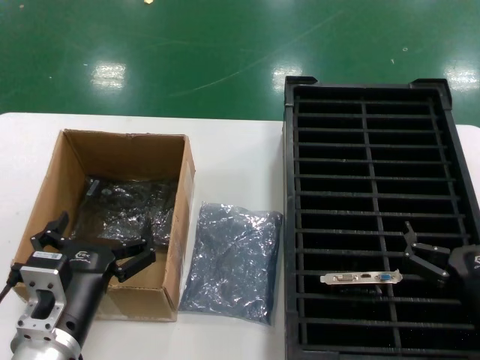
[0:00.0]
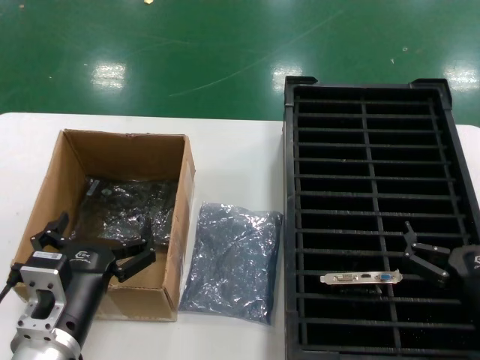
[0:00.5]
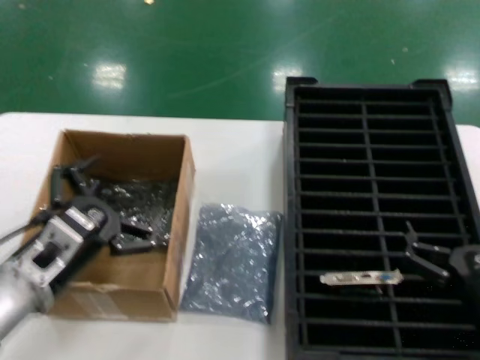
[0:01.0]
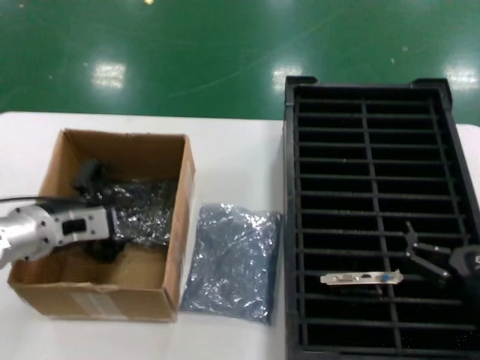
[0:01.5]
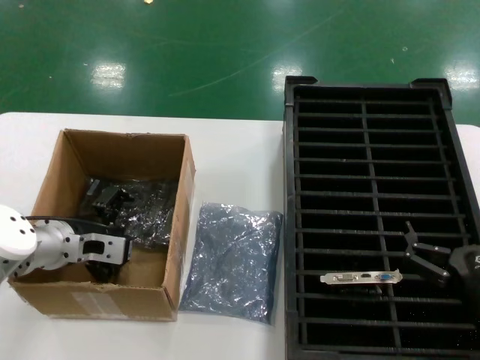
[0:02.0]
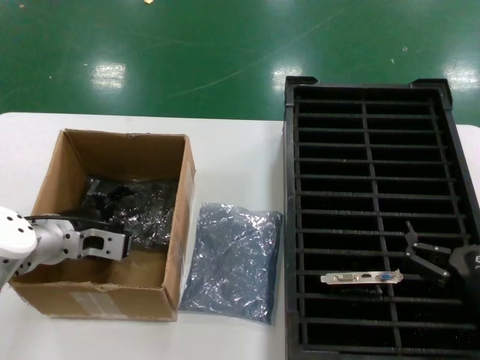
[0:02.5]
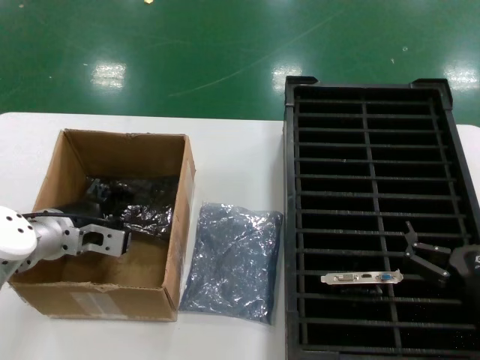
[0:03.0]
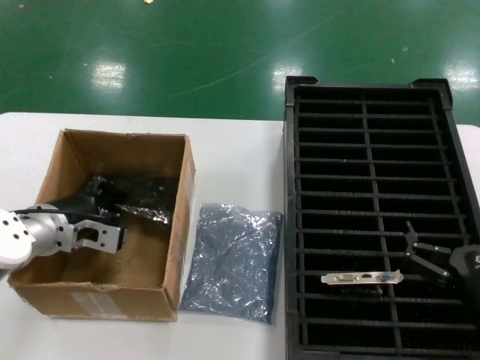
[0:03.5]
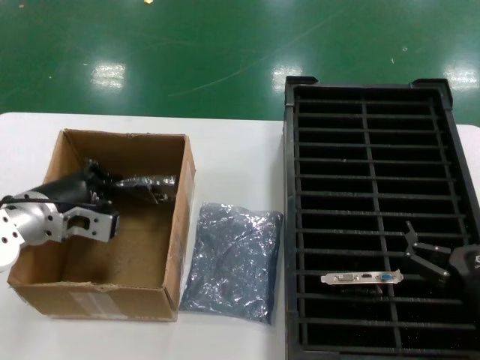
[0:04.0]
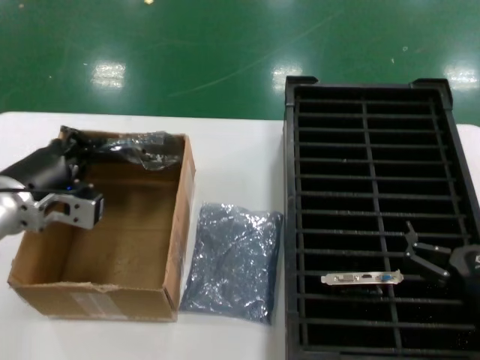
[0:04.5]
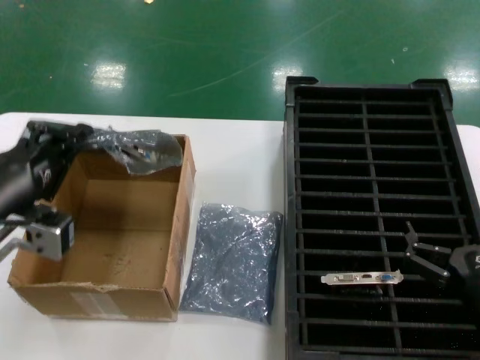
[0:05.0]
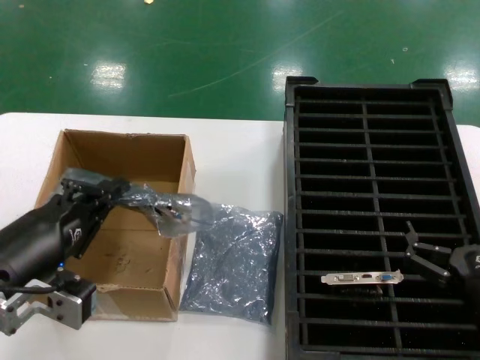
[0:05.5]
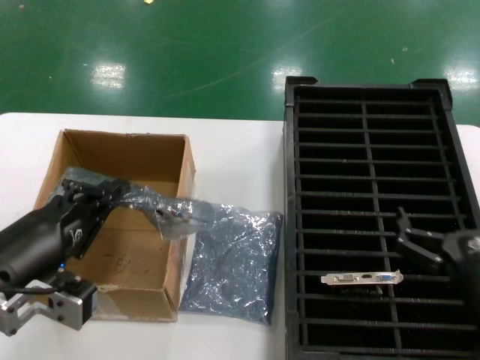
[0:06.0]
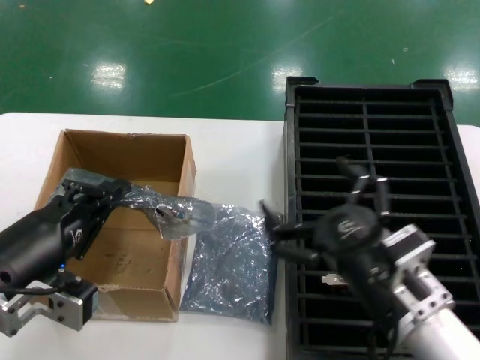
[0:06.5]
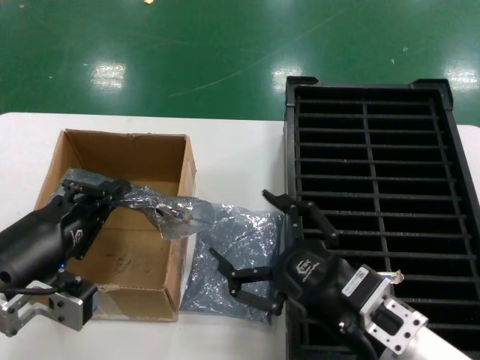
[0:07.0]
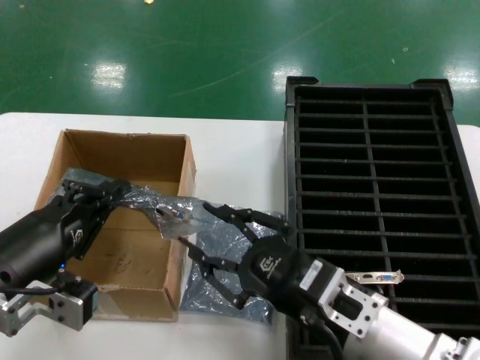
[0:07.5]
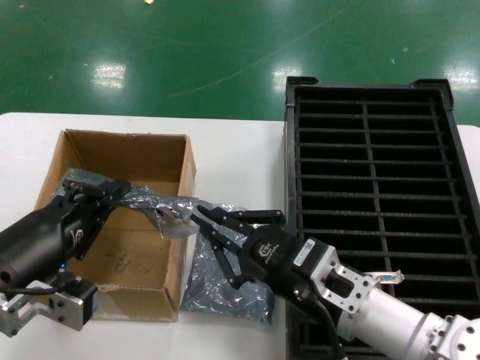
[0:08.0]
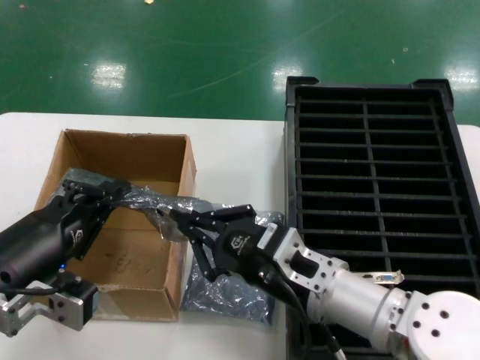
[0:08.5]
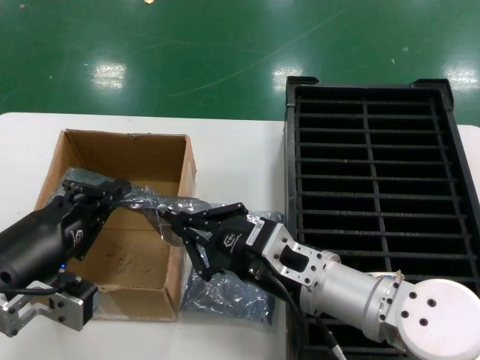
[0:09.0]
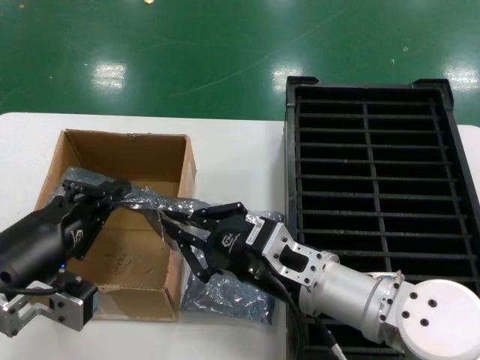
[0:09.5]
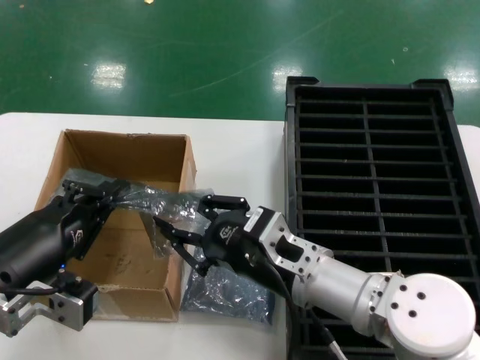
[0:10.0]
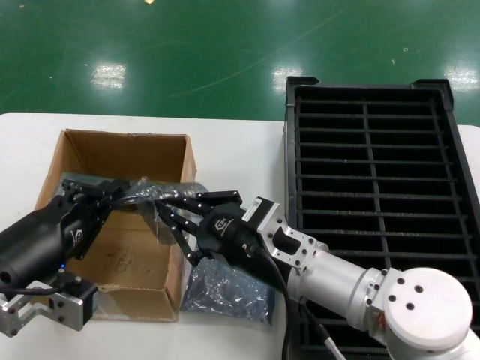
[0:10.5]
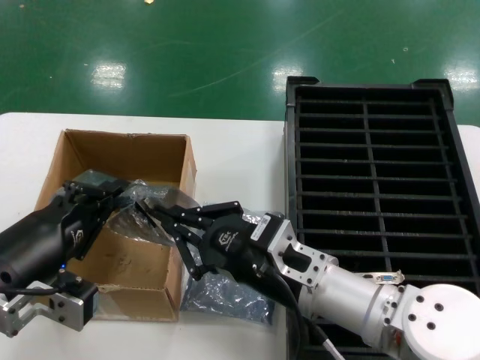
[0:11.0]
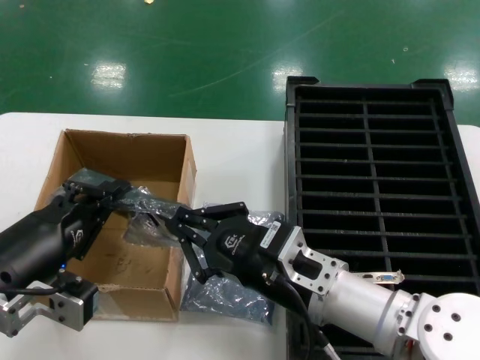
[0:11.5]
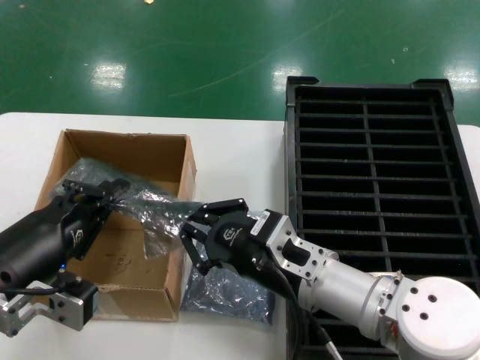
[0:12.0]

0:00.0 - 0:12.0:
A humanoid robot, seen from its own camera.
Task of the whole recording: take out graphics card from box remove packaging put into black container.
Step, 0:00.0 - 0:02.5: Grasp the bag.
Step, 0:03.5 - 0:05.5: Lift the bag.
0:00.0 - 0:02.0: The left hand travels forward and to the left by some 20 cm.
0:02.0 - 0:04.0: There are only small adjustments of the hands.
0:04.0 - 0:06.0: The left hand goes approximately 20 cm backward.
0:06.0 - 0:08.0: The right hand travels to the left by some 15 cm.
0:08.0 - 0:10.0: The right hand ends up some 5 cm from where it was.
0:10.0 - 0:12.0: The hands move only a little.

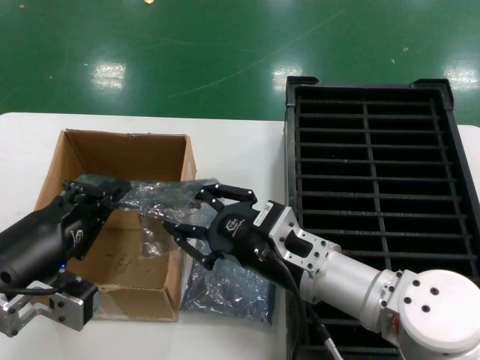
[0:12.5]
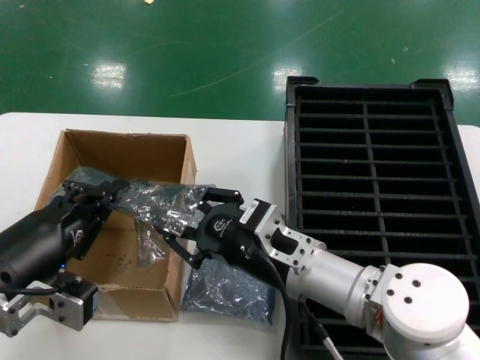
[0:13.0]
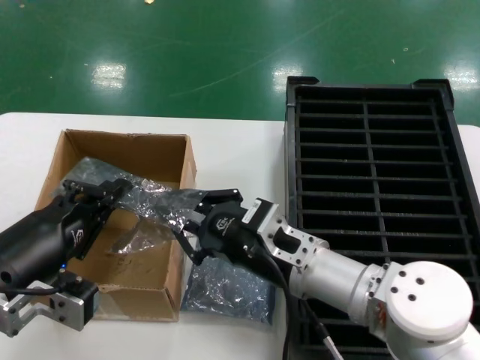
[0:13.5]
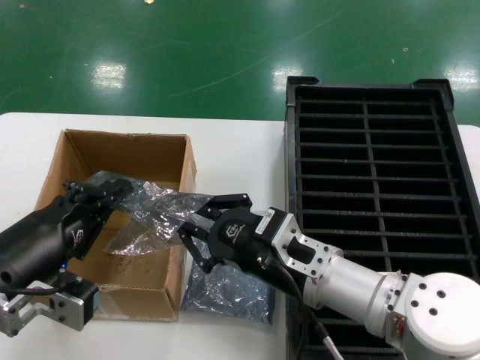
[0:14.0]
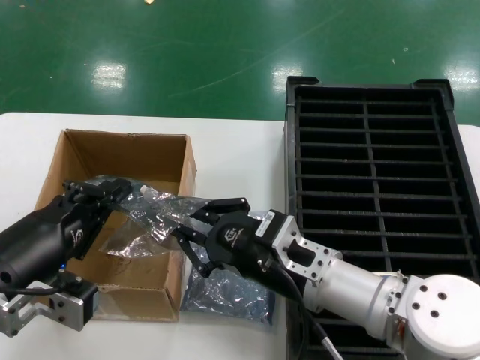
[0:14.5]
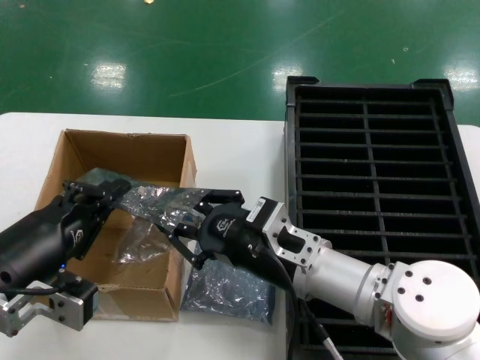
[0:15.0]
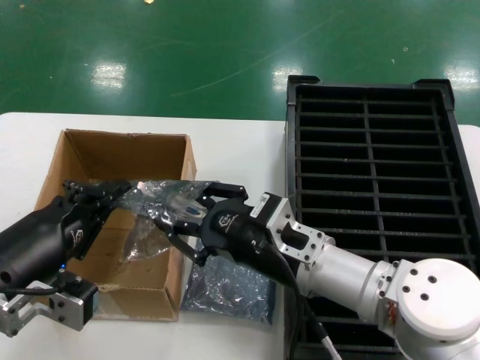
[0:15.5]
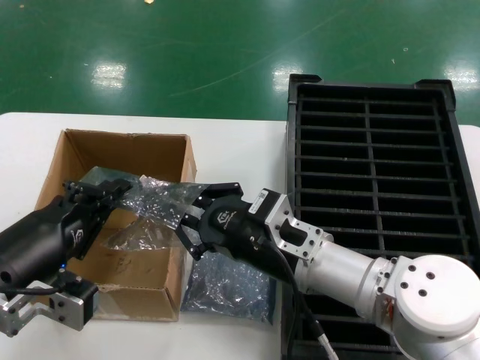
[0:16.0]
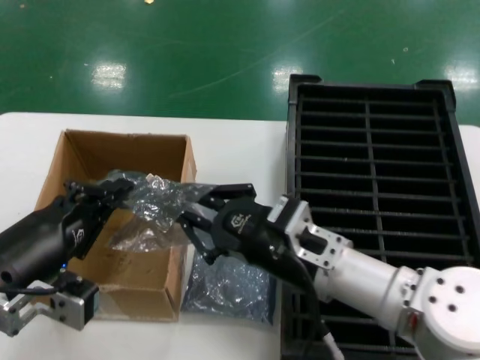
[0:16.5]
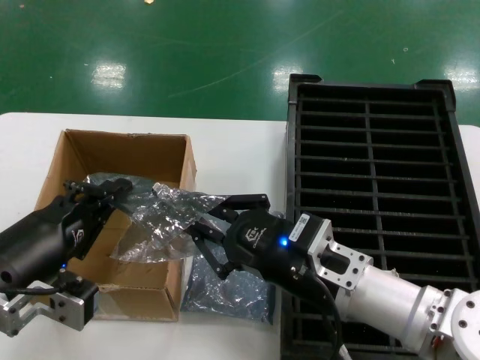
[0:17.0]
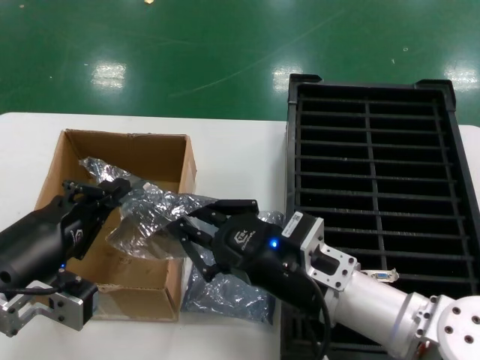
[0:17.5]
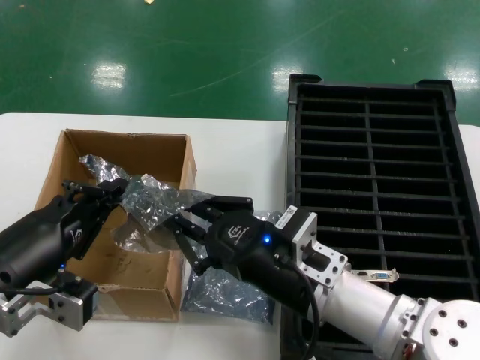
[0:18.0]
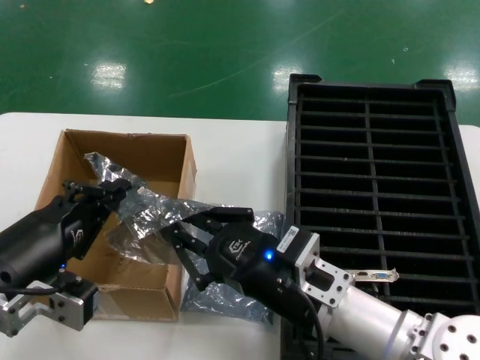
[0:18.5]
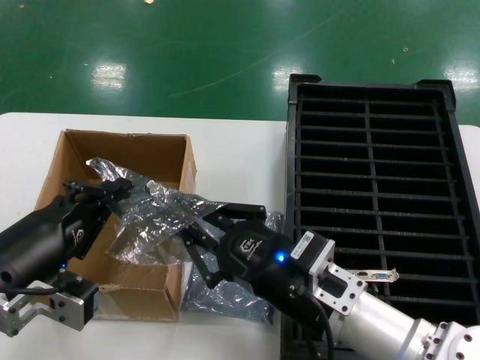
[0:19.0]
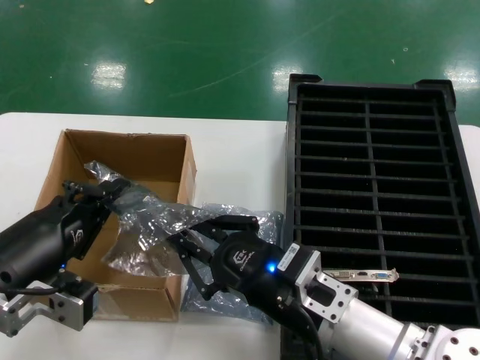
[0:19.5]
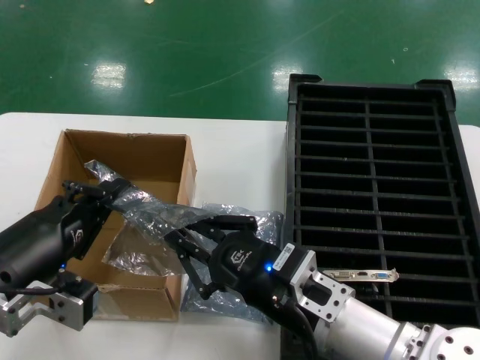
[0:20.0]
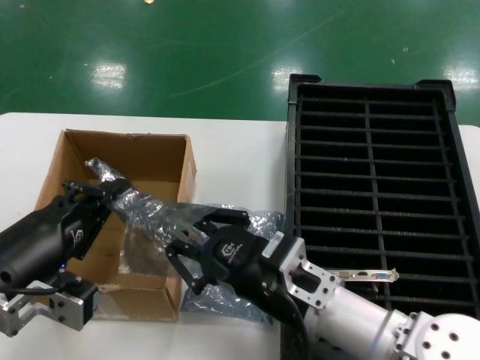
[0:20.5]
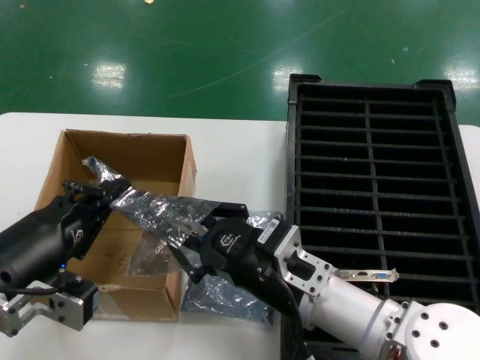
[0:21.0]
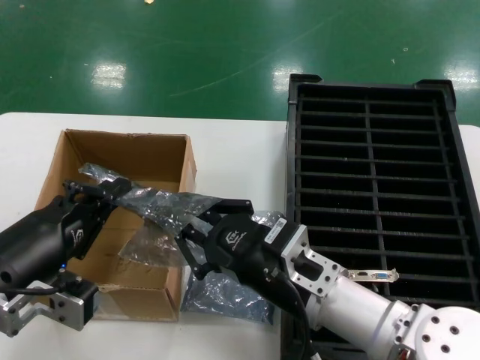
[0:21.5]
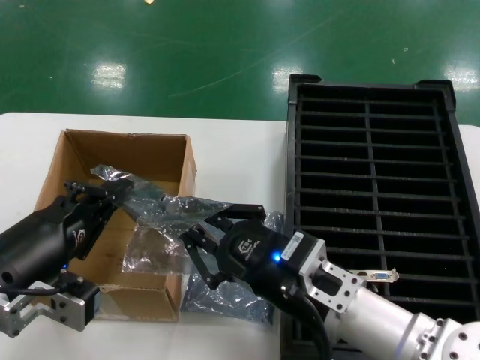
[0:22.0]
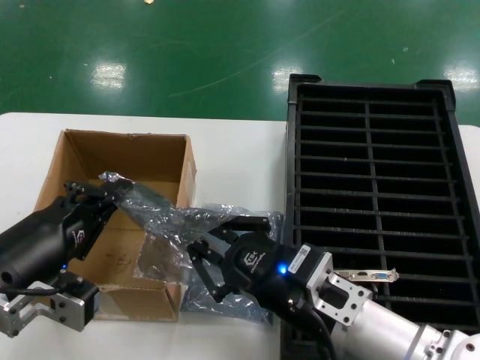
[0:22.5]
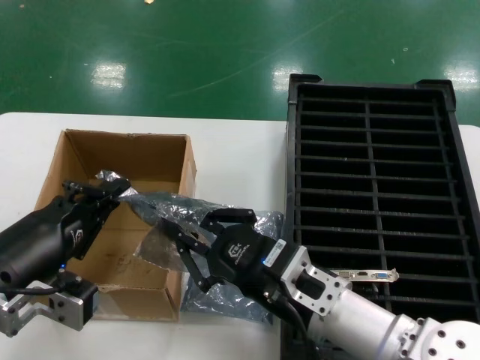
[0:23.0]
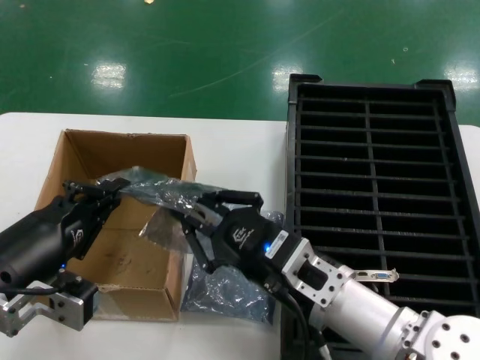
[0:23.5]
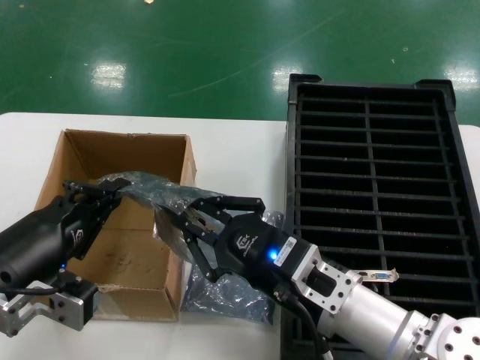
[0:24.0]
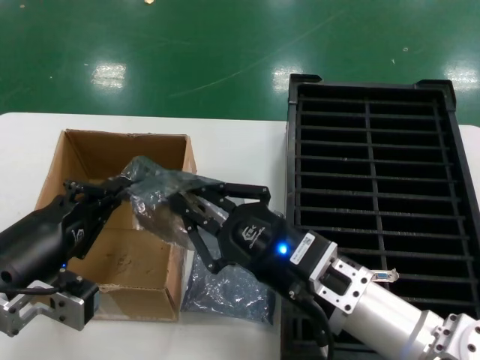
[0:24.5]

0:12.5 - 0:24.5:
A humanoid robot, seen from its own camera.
Task of the whole recording: take out graphics card from box remove packaging put into black container.
0:12.5 - 0:20.5: The hands make only small movements.
0:20.5 - 0:24.5: The hands move only a little.

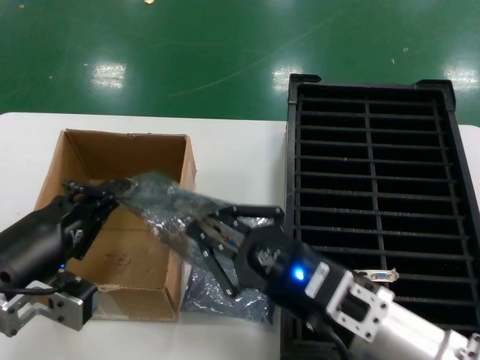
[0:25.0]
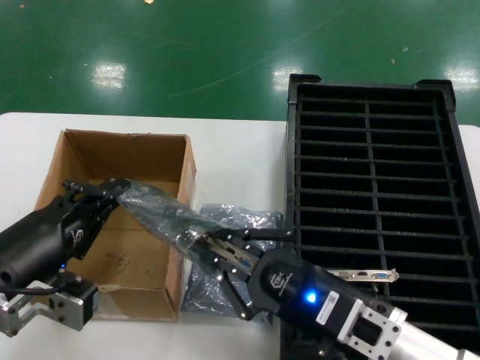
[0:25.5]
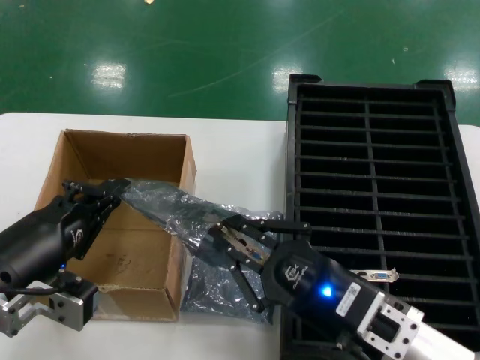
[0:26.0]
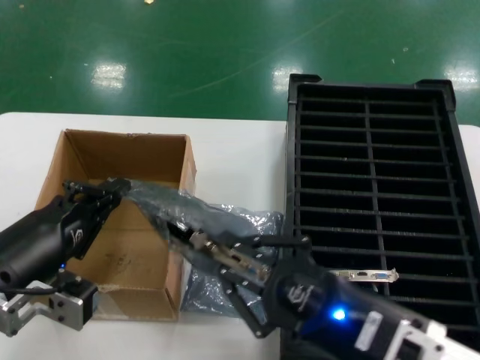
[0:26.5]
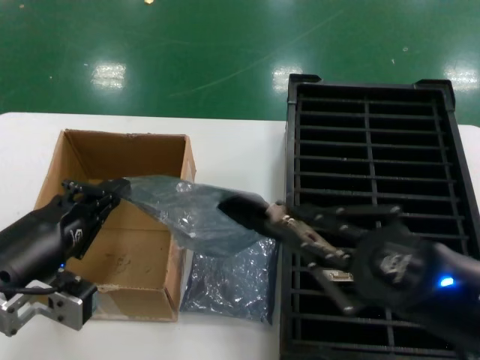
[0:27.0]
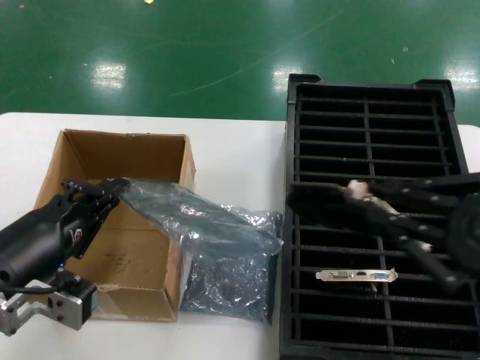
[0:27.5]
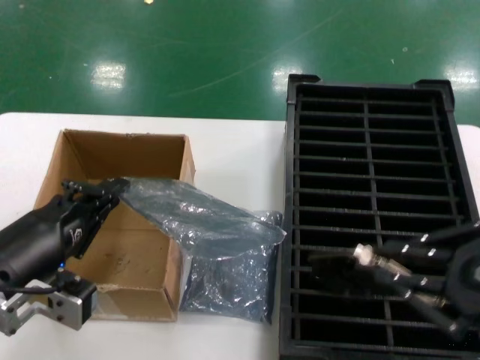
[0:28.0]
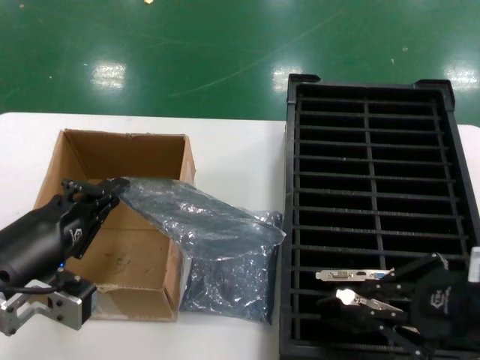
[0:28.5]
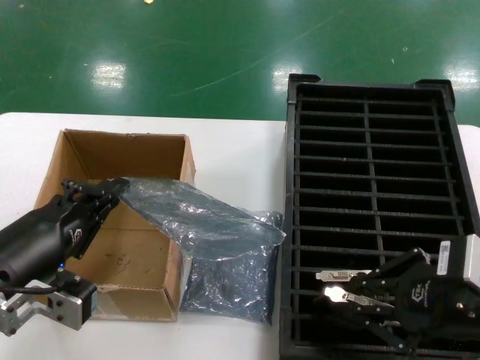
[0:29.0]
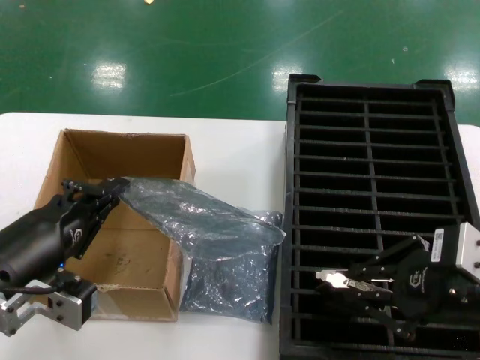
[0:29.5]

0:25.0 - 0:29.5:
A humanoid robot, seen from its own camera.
Task of the whole recording: take out graphics card from box remove packaging put into black container.
Step, 0:25.0 - 0:27.0: Take out the hard disk of the bag.
0:25.0 - 0:27.0: The right hand travels to the right, upward and backward by about 15 cm.
0:27.0 - 0:29.5: The right hand heads upward, covering about 5 cm, and moves about 10 cm to the right and comes back.
